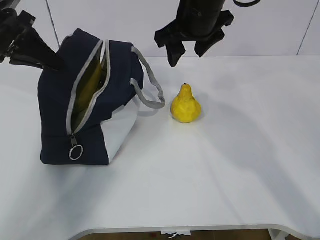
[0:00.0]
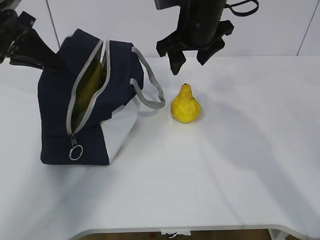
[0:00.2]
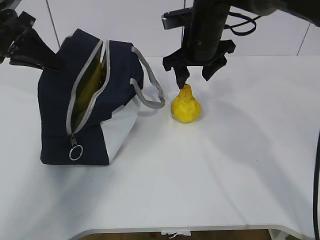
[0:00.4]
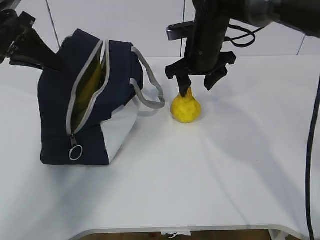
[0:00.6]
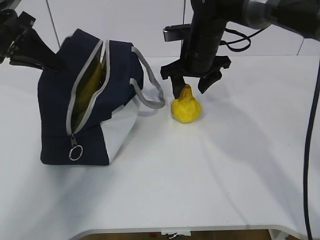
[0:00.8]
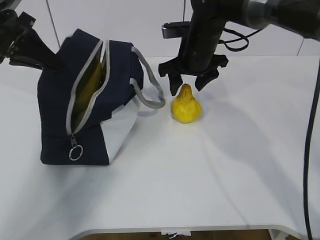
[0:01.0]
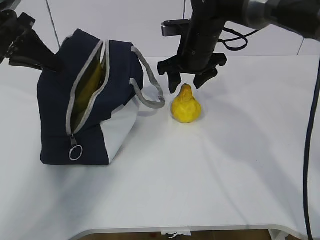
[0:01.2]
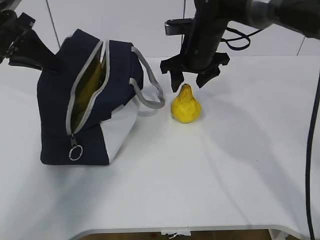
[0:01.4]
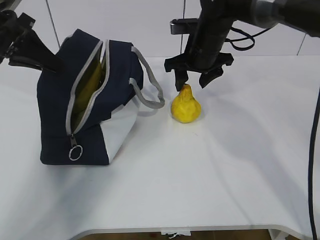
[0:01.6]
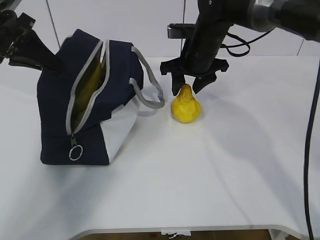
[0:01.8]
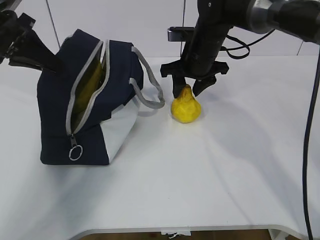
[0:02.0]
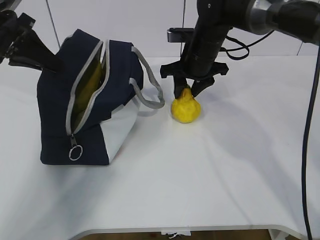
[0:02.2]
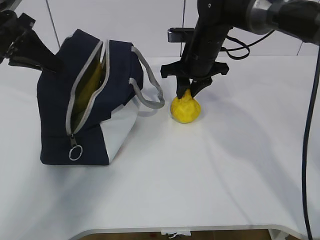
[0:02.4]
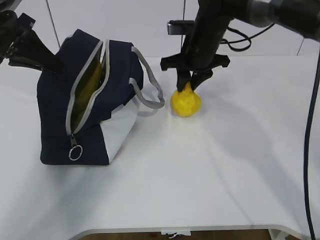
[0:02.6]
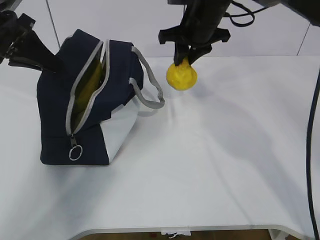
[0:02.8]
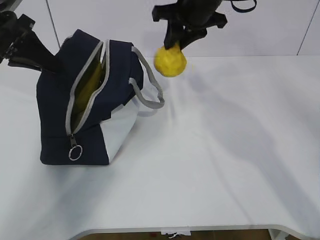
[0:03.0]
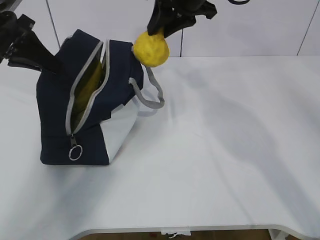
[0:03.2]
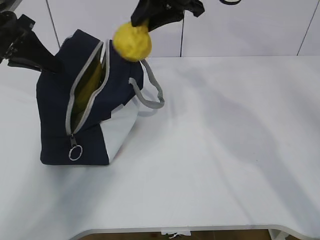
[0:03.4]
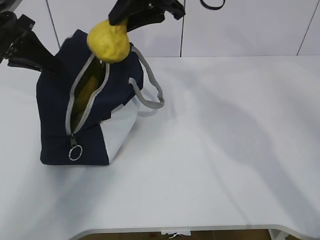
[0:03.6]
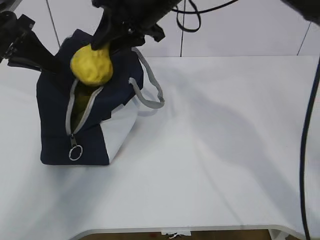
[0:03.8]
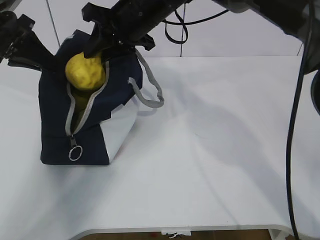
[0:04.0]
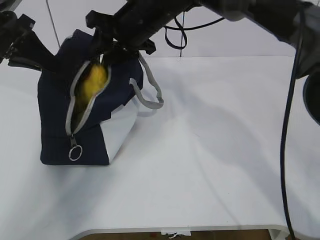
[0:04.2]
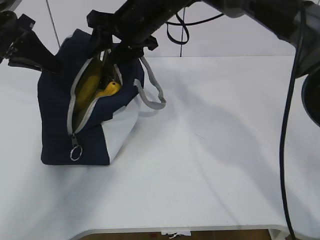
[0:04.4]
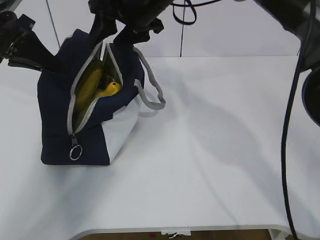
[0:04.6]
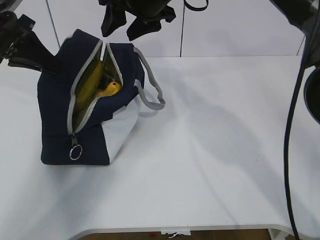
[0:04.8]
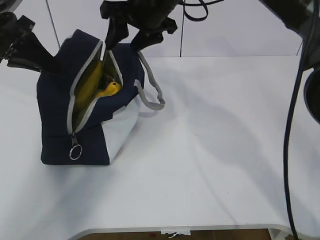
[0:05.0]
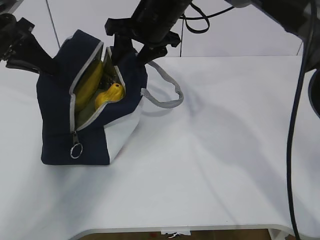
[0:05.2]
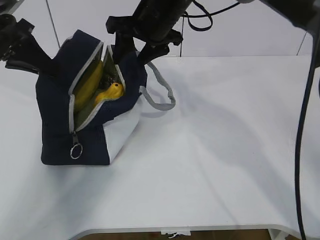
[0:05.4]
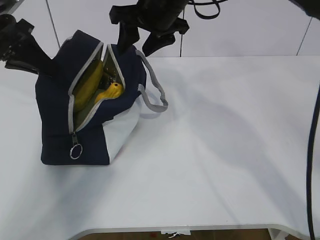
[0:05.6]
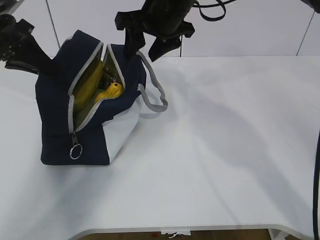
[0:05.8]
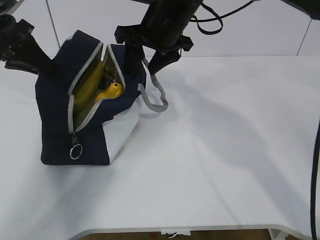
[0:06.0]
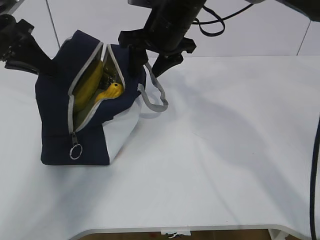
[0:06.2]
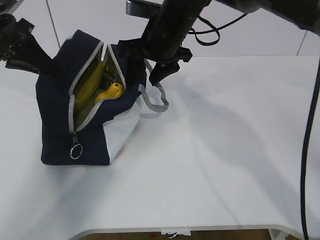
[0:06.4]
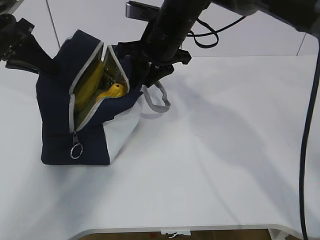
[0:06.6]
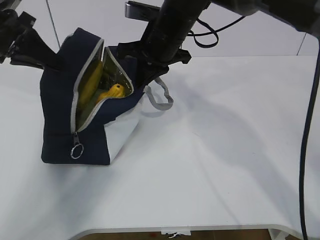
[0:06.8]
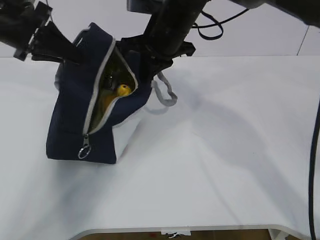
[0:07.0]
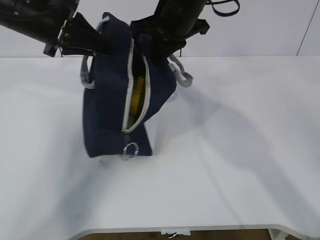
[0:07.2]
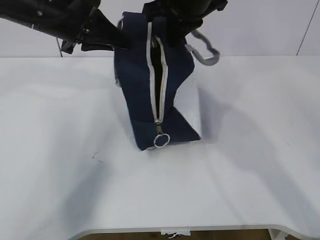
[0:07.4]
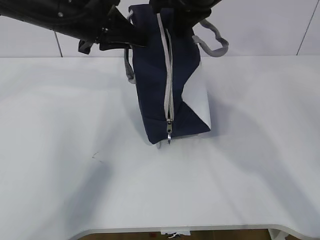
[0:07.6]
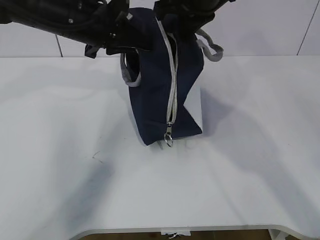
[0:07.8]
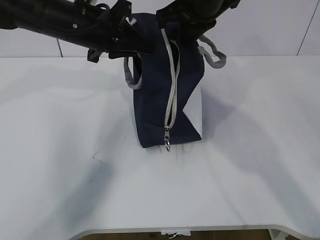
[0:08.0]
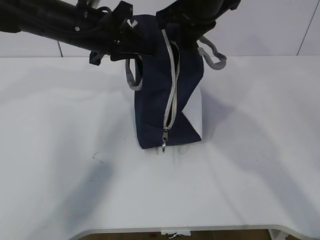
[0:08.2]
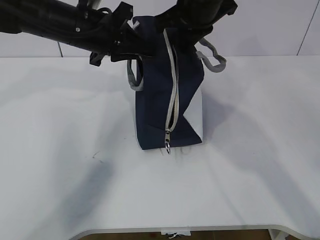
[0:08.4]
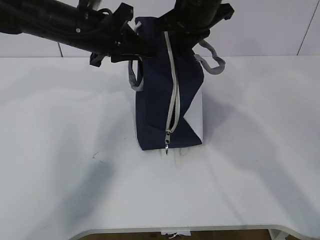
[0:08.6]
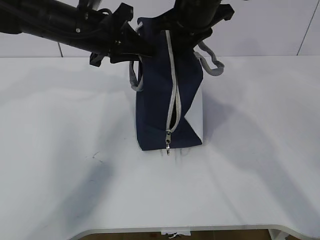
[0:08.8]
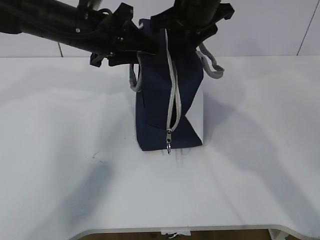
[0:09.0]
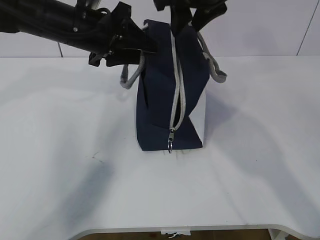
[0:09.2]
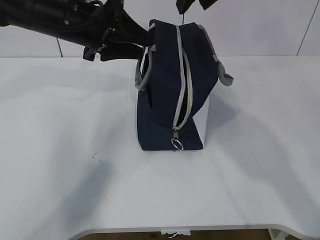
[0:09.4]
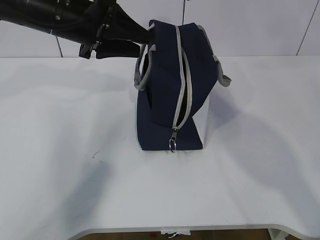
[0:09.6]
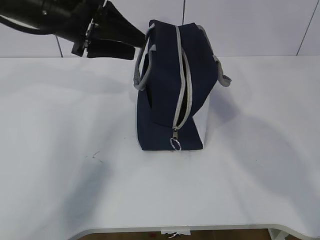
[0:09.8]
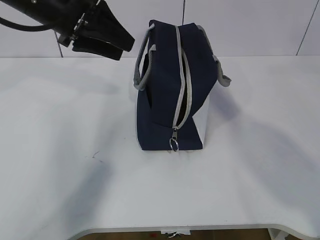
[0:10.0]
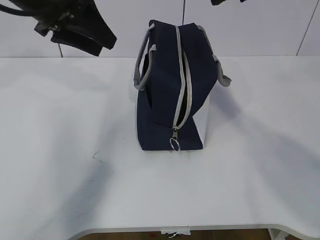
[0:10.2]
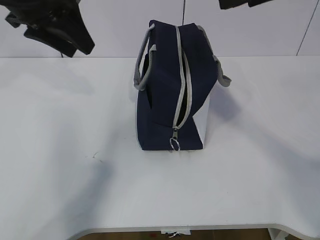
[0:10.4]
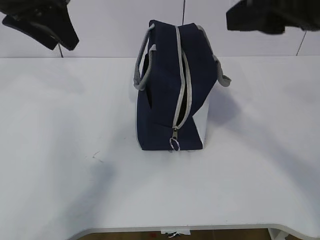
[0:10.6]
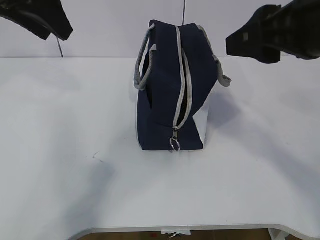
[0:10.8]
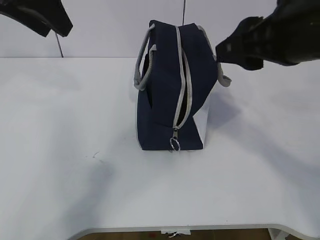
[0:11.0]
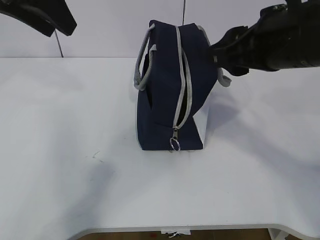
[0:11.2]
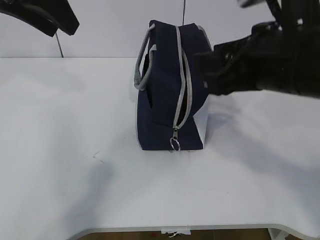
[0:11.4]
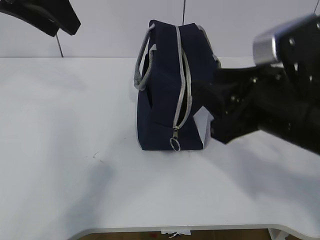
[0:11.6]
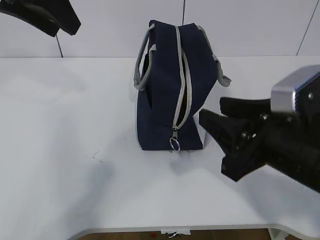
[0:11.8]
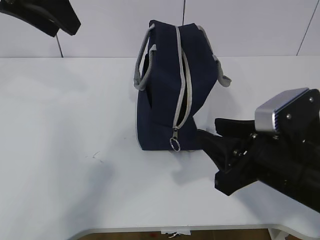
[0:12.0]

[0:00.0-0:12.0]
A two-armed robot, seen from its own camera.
Step, 0.0 to 1.4 s: Grab the lunch bag with your right hand.
Step, 1.6 to 3.8 s: Move the lunch bag to the right.
0.0 to 1.6 s: The right gripper travels downward by about 10 cm.
1.6 to 3.0 s: The right gripper moves upward, about 10 cm, and closes.
3.0 to 4.4 s: The right gripper heads to the left, covering some 10 cm, and opens its fingers.
4.4 to 6.0 s: The grippers move only a little.
6.0 to 7.6 s: The left gripper goes some 15 cm to the right; the right gripper goes some 5 cm upward, and closes its fingers.
7.6 to 9.0 s: The right gripper opens, while the left gripper opens up.
9.0 to 10.4 s: The right gripper shifts some 20 cm backward, upward and to the right; the left gripper heads upward and to the left, covering roughly 10 cm.
10.4 to 12.0 s: The right gripper is displaced downward by some 20 cm. The left gripper shifts by roughly 5 cm.

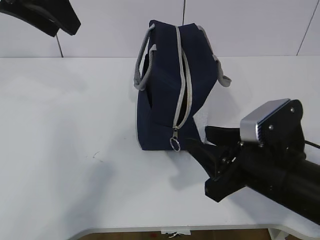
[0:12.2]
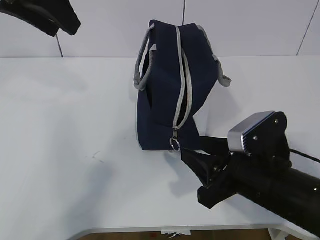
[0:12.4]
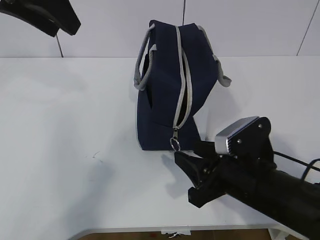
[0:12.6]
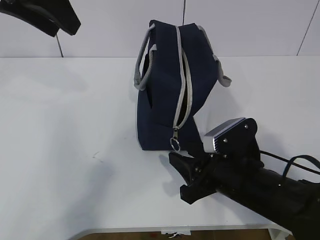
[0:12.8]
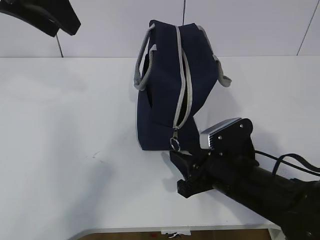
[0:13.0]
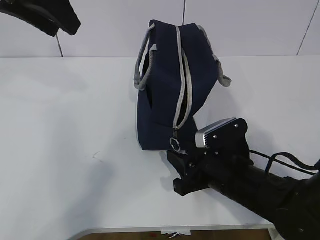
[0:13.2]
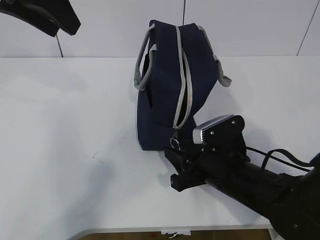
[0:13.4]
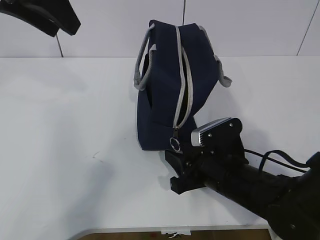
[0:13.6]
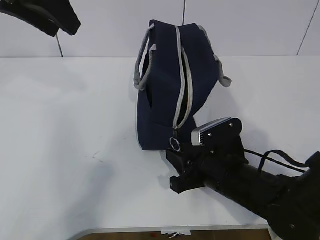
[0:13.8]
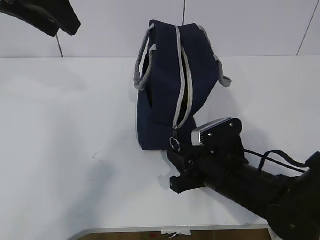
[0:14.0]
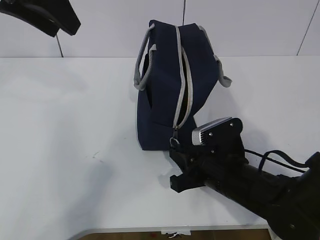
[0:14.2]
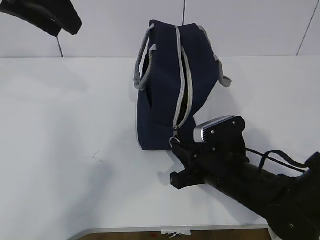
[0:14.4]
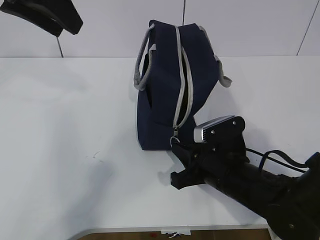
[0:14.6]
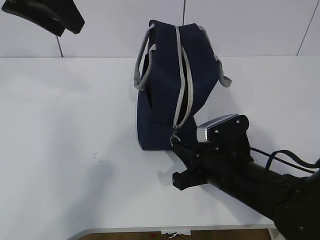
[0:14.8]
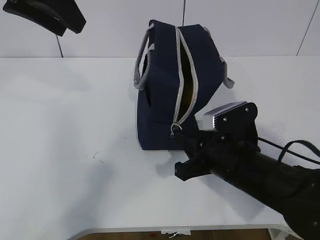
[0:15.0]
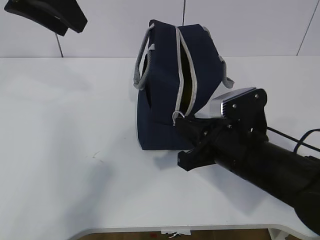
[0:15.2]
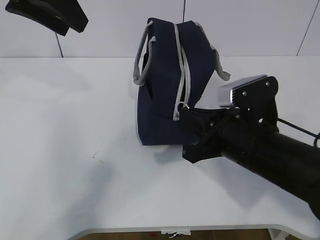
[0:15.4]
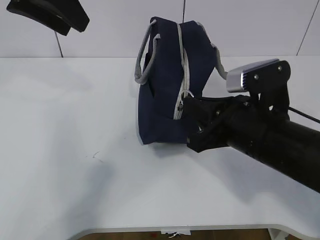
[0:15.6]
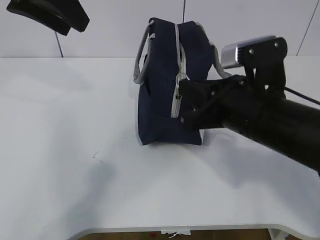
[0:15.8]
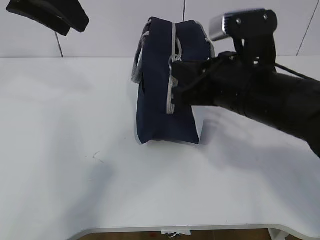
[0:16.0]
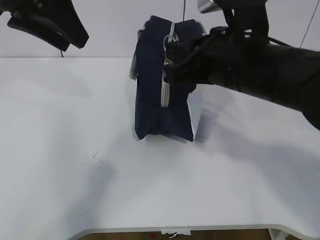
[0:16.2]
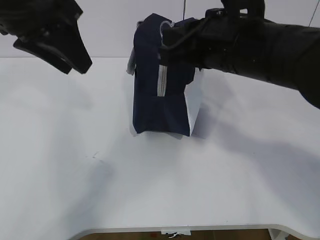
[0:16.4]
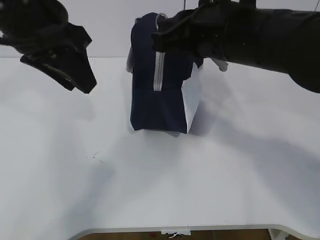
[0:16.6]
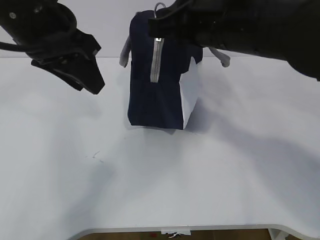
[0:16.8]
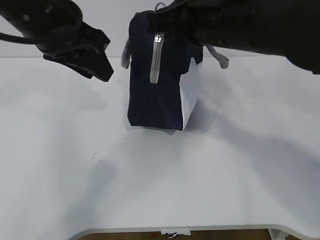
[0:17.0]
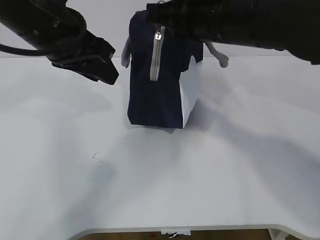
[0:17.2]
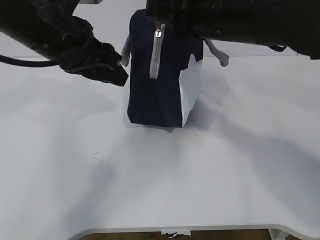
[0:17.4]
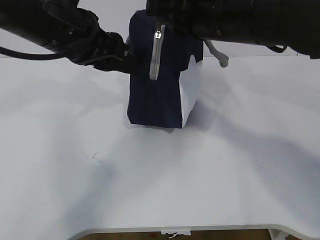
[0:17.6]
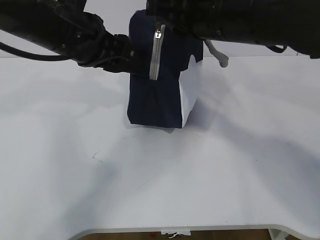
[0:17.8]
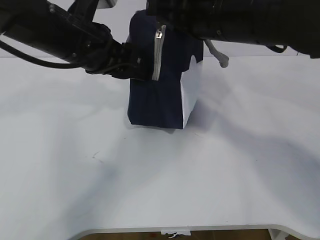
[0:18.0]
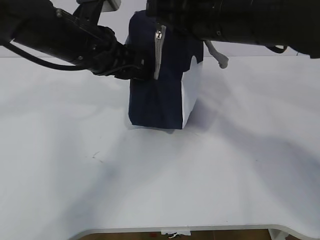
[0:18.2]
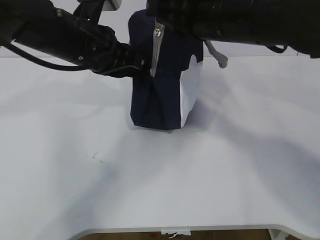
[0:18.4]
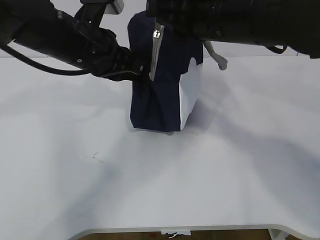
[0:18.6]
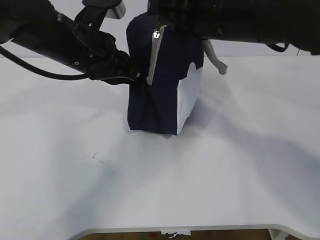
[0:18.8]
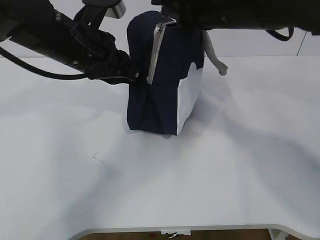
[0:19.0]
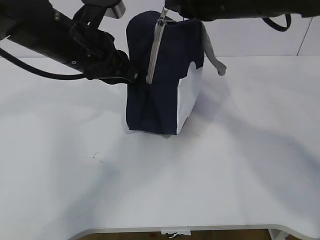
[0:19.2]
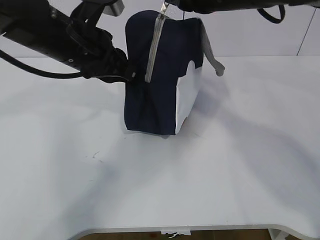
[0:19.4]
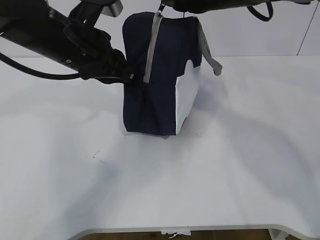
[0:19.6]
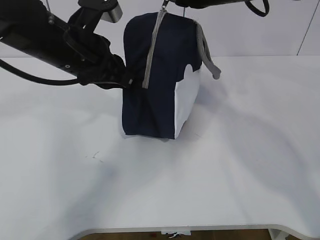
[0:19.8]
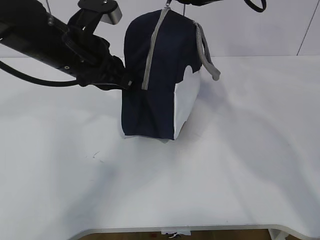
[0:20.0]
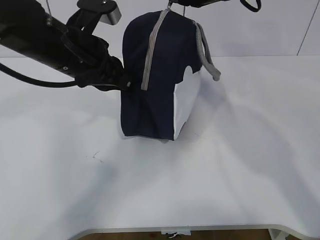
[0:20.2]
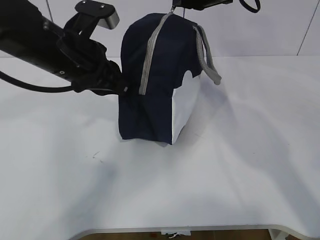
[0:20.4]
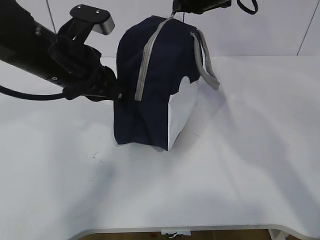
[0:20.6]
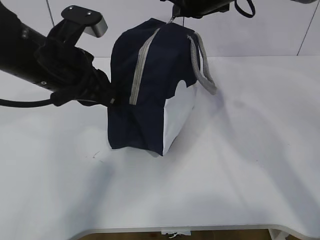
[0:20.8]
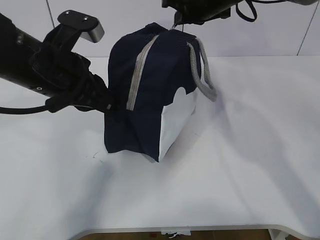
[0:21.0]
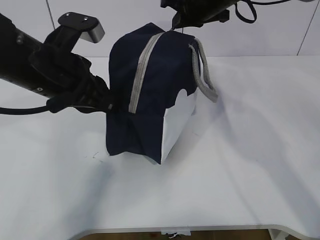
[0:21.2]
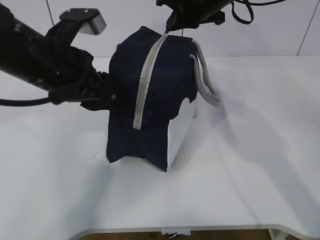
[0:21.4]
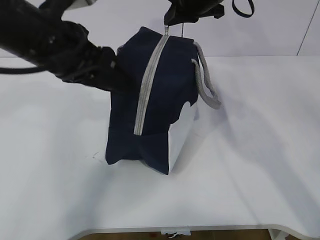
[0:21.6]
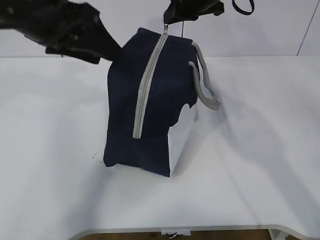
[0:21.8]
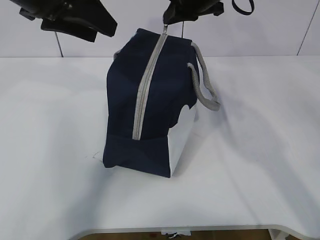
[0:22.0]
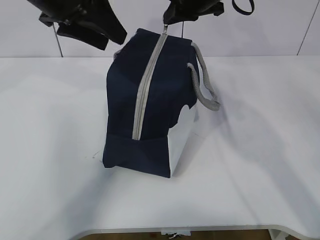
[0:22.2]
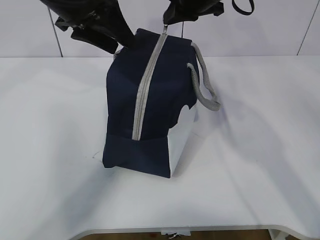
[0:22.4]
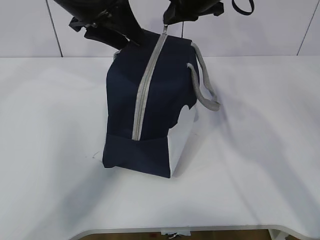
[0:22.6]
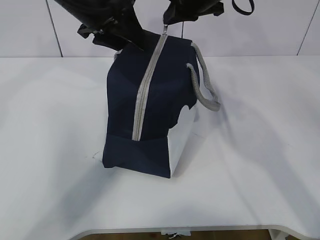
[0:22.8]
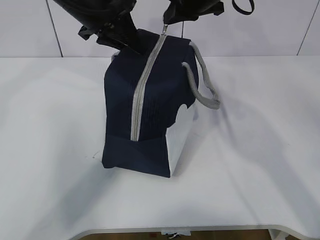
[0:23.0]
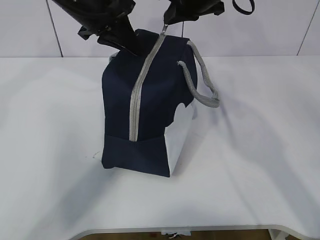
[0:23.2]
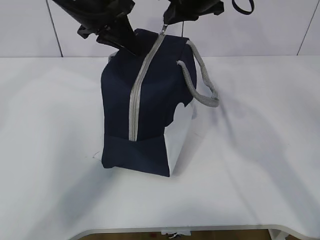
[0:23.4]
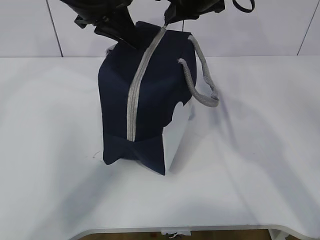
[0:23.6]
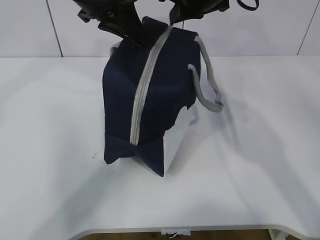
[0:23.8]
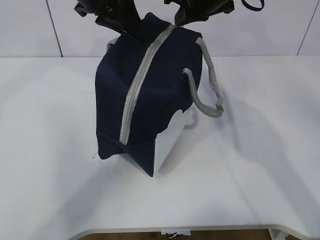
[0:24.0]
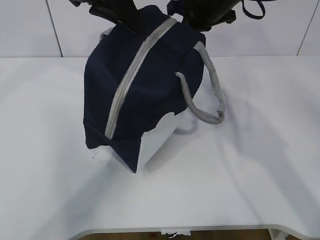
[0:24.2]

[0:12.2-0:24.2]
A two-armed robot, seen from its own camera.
Step, 13.6 to 16.4 s: Pull the zipper with your right hand.
Step, 16.6 to 17.4 s: Grab the lunch bag with your left hand.
12.2 to 13.8 s: The right gripper shifts some 10 cm downward and forward.
13.8 to 15.2 s: The right gripper goes some 5 cm upward, and closes.
15.2 to 16.6 s: The left gripper travels downward by approximately 5 cm. Meanwhile the right gripper goes some 15 cm upward.
16.6 to 18.2 s: The left gripper is displaced downward by roughly 5 cm.
18.2 to 19.8 s: The left gripper closes its fingers. The right gripper is displaced forward by some 10 cm.
19.8 to 21.2 s: The right gripper moves forward, about 10 cm.
21.2 to 22.6 s: The left gripper goes roughly 15 cm forward and upward, and opens its fingers.
22.6 to 24.2 s: The left gripper moves approximately 5 cm, and closes its fingers.
